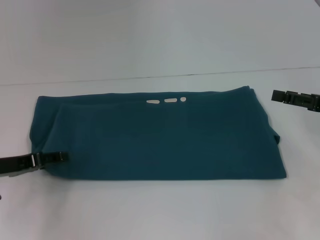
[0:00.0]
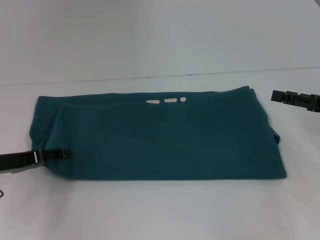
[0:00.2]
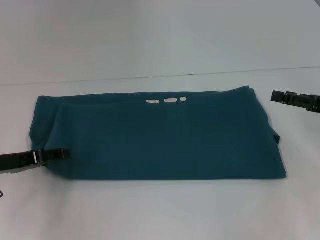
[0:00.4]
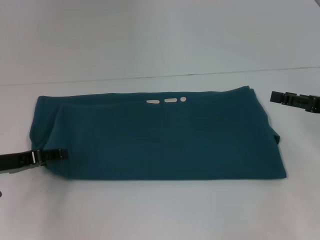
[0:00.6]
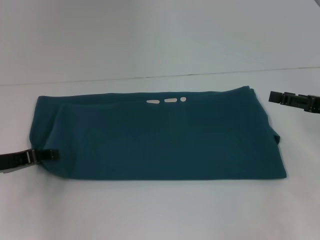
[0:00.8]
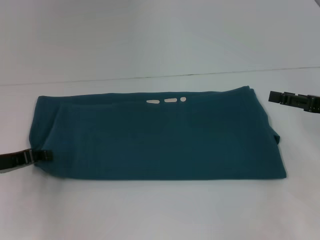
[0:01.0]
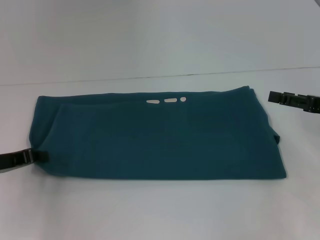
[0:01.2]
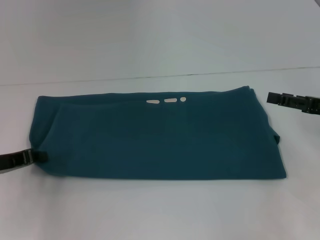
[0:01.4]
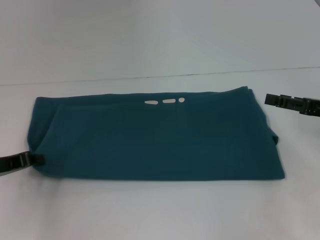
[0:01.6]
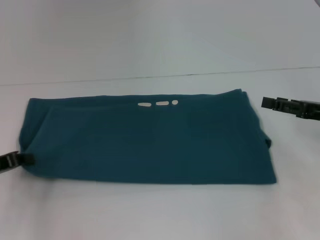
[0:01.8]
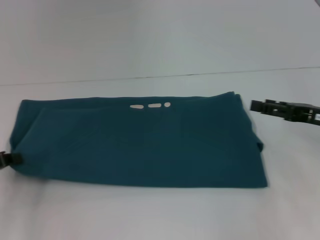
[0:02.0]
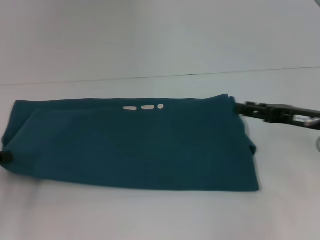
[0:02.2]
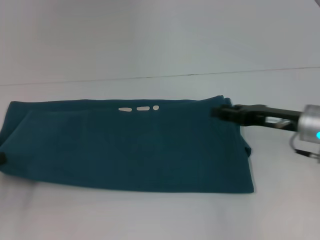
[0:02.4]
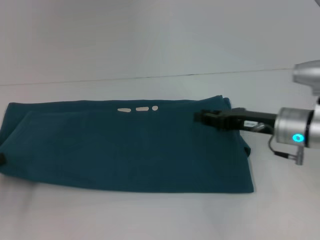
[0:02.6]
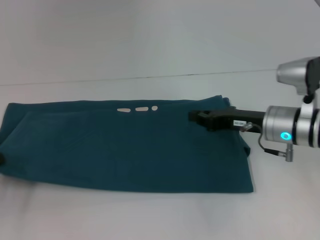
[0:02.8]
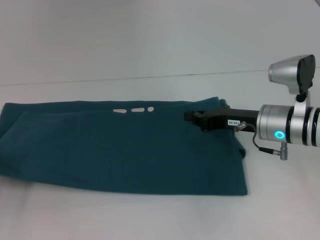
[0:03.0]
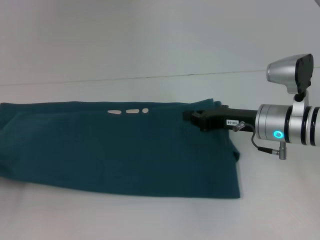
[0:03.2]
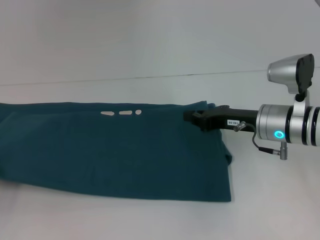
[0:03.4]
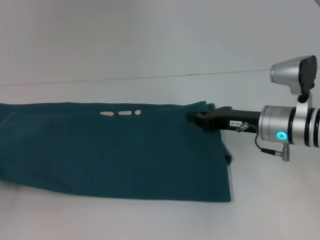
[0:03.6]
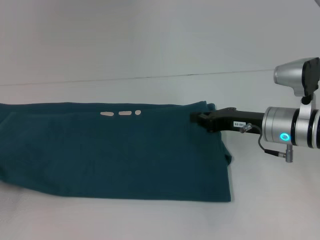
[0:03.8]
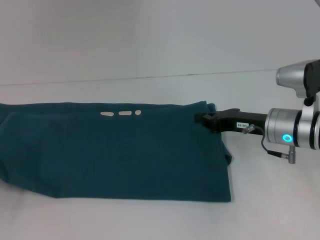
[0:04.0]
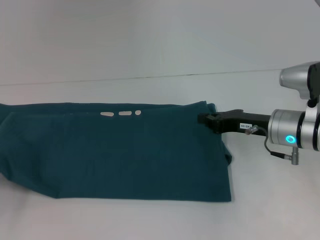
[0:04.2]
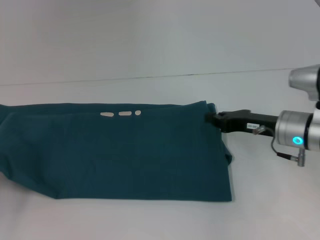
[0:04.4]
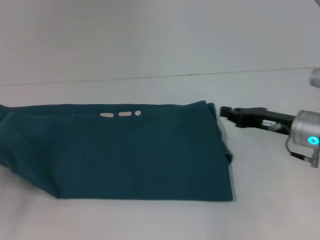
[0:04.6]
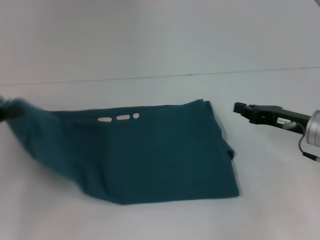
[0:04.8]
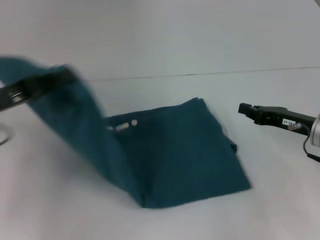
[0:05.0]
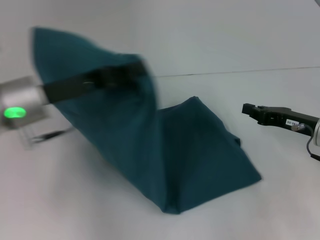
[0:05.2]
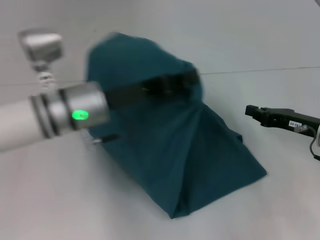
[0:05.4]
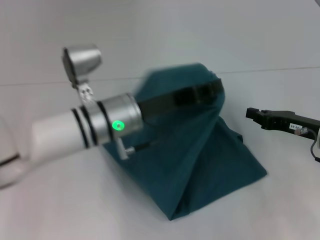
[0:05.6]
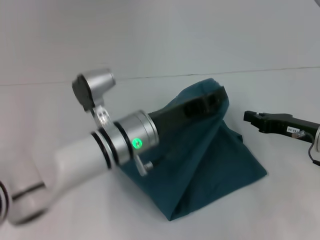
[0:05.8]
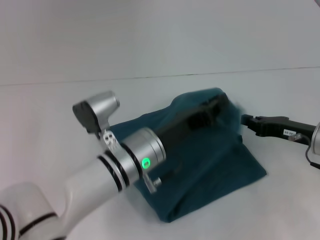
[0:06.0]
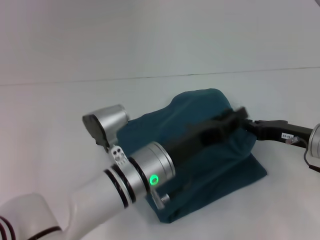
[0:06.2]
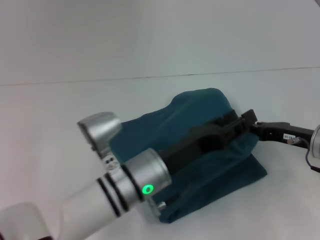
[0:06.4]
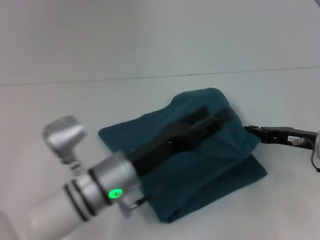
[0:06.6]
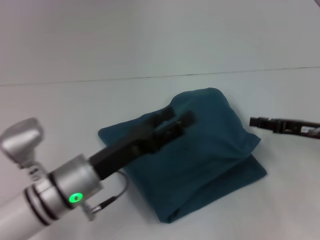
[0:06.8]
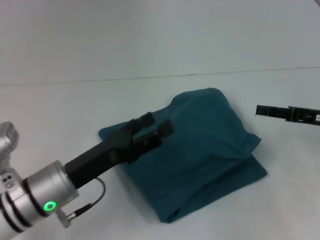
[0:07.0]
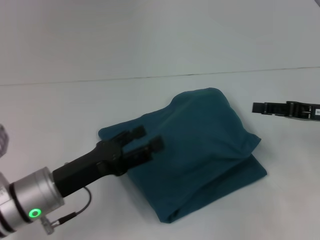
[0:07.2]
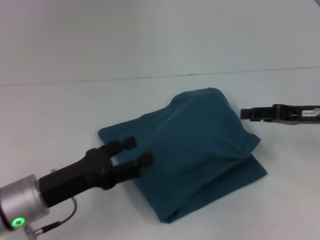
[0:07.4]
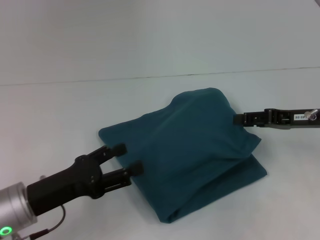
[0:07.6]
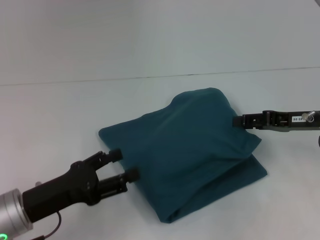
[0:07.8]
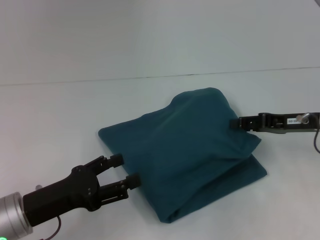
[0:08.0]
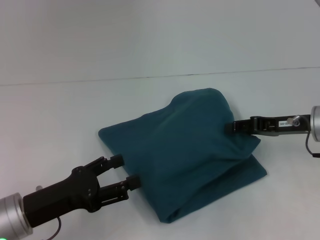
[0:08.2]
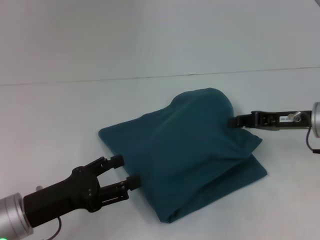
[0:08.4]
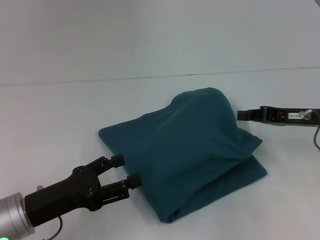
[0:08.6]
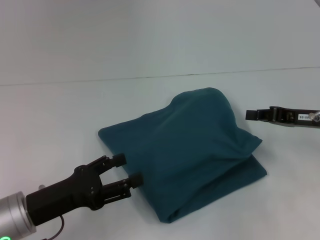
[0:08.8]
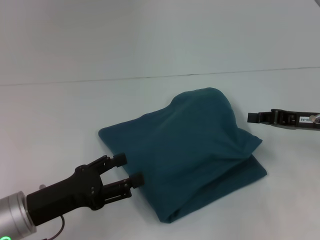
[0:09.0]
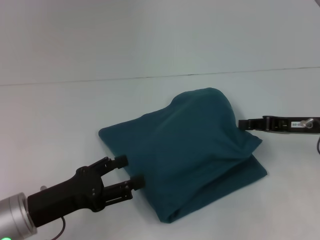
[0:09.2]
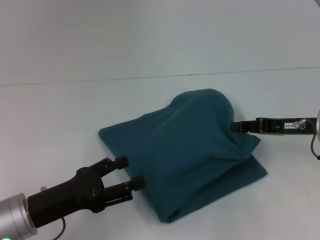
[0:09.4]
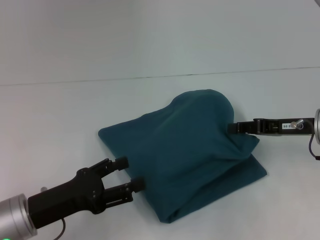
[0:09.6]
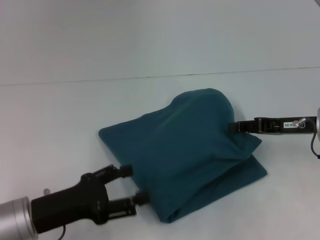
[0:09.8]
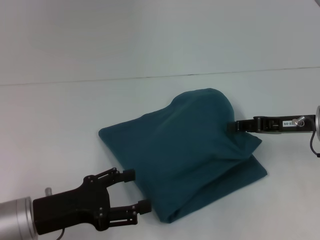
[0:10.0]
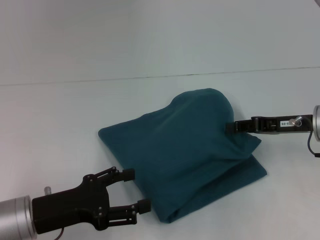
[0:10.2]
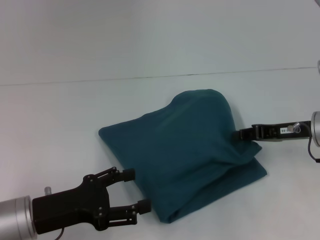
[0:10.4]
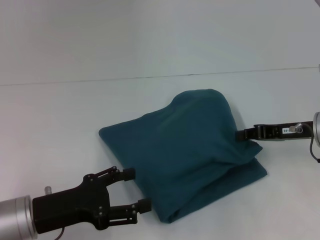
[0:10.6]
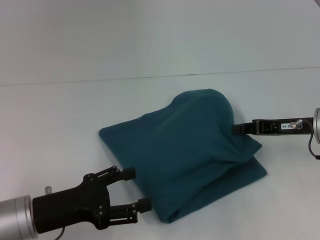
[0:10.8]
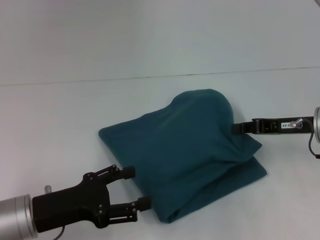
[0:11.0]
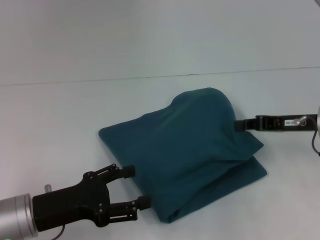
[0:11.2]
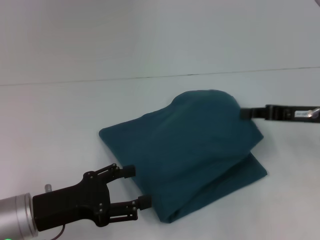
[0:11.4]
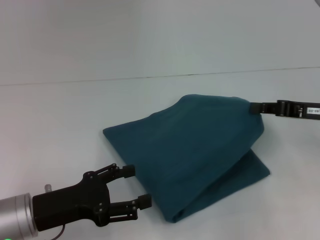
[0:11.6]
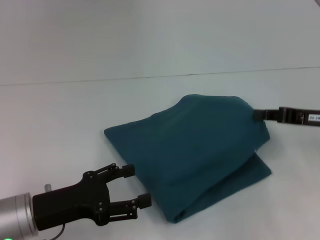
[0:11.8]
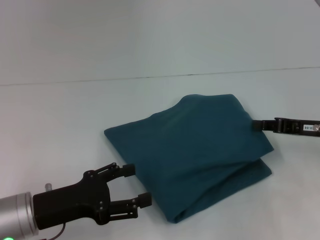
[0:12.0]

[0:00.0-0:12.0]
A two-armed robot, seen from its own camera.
Step, 0:00.0 to 0:06.2: Fold the clothes to the left.
0:00.0 to 0:01.6: The left gripper closes its fingers.
0:01.6 to 0:03.0: The left gripper travels to the left by approximately 5 cm. Meanwhile the right gripper is displaced to the left by some 15 cm, and closes its fingers.
0:03.0 to 0:04.4: The grippers move only a little.
0:04.4 to 0:06.0: The left gripper shifts about 35 cm to the right, while the right gripper is displaced to the right by some 5 cm.
0:06.0 to 0:07.6: The right gripper heads upward, covering some 5 cm, and opens its fingers. The left gripper is displaced to the left by approximately 15 cm, and opens its fingers.
0:07.6 to 0:09.0: The right gripper closes up.
0:09.0 to 0:12.0: The grippers stay close to where they were, moving slightly.

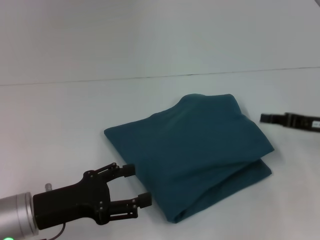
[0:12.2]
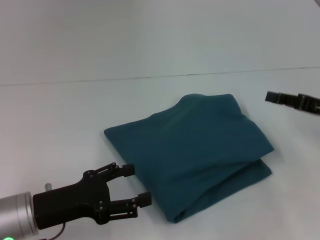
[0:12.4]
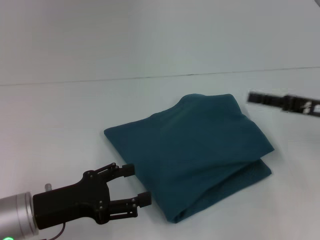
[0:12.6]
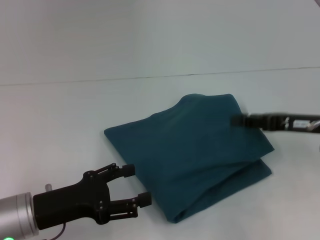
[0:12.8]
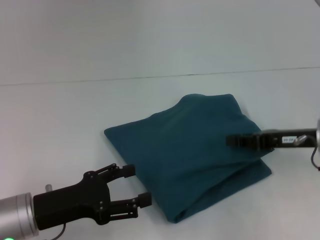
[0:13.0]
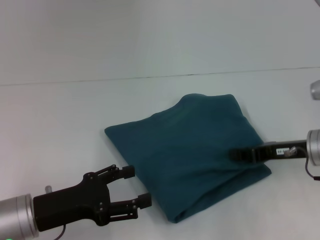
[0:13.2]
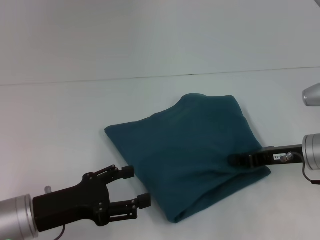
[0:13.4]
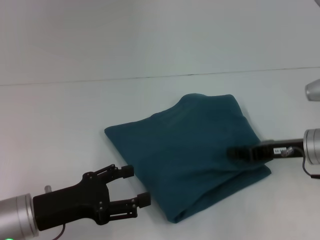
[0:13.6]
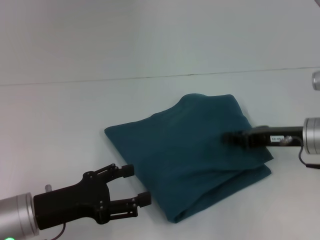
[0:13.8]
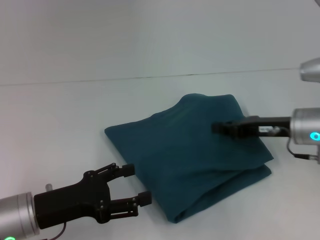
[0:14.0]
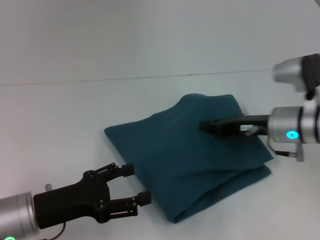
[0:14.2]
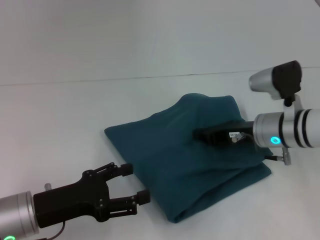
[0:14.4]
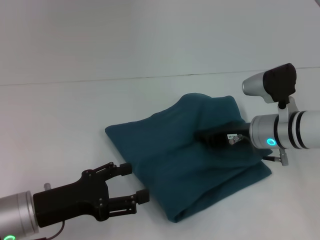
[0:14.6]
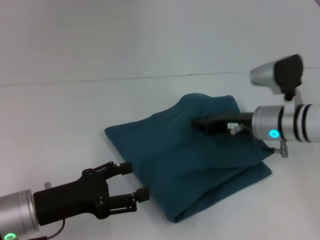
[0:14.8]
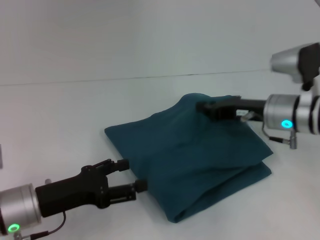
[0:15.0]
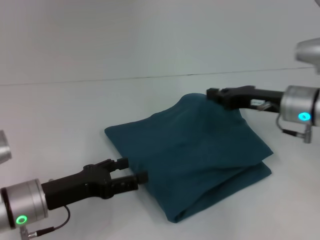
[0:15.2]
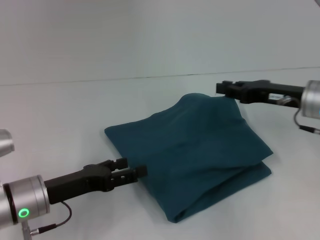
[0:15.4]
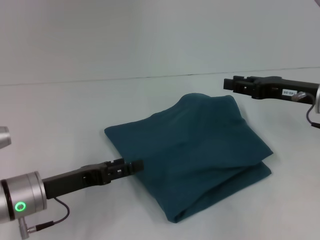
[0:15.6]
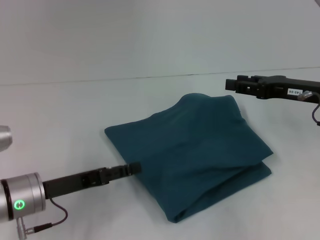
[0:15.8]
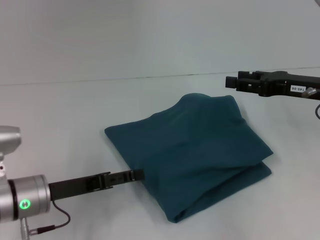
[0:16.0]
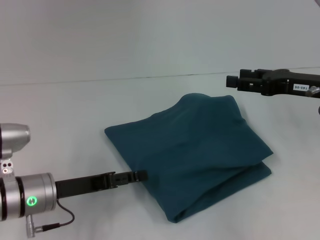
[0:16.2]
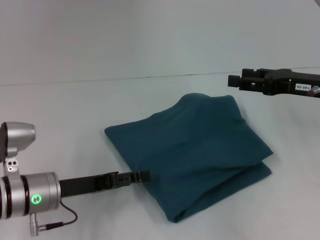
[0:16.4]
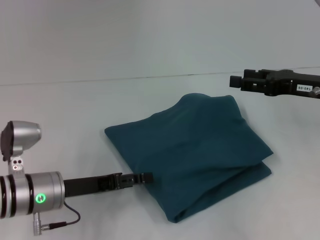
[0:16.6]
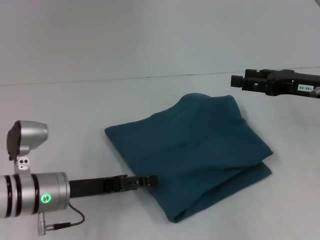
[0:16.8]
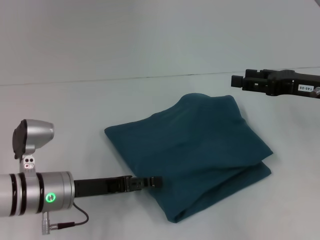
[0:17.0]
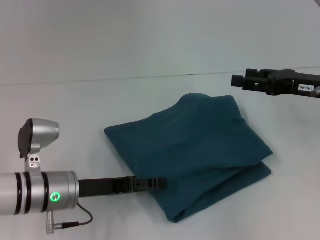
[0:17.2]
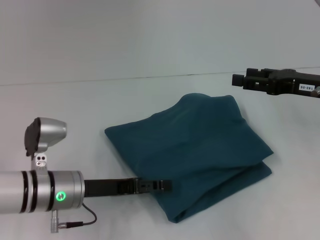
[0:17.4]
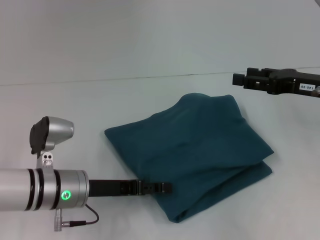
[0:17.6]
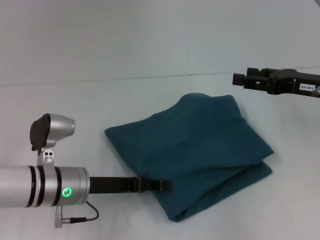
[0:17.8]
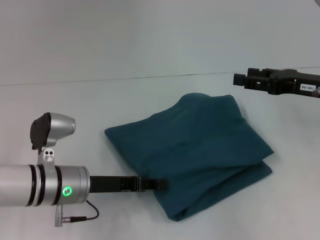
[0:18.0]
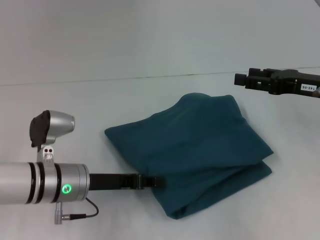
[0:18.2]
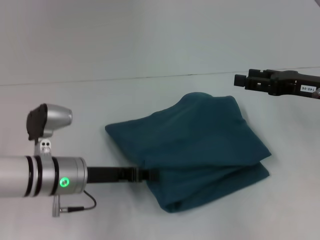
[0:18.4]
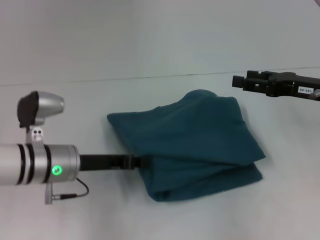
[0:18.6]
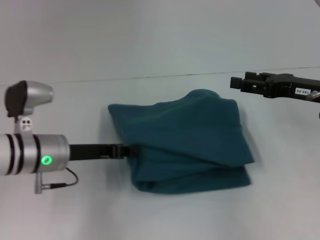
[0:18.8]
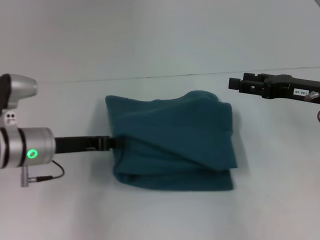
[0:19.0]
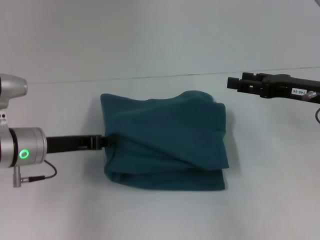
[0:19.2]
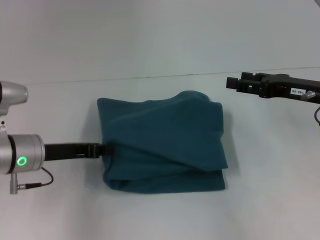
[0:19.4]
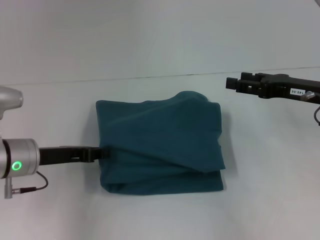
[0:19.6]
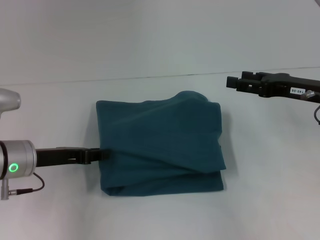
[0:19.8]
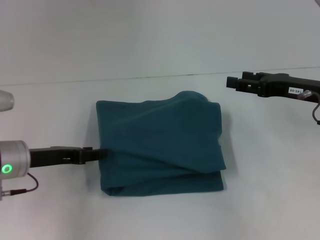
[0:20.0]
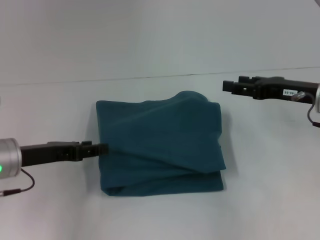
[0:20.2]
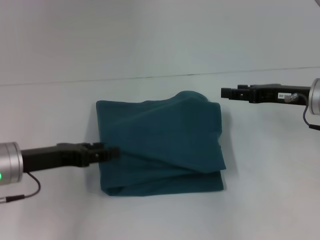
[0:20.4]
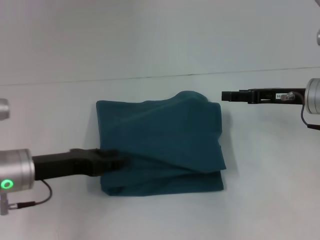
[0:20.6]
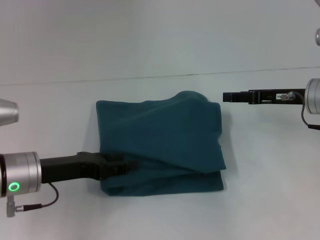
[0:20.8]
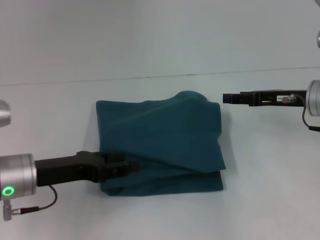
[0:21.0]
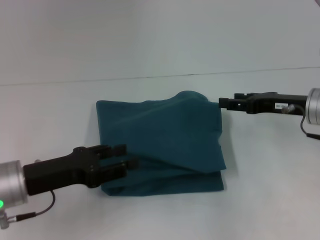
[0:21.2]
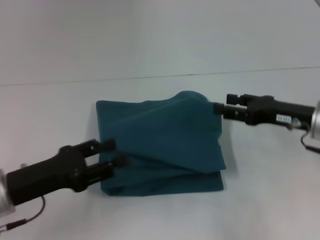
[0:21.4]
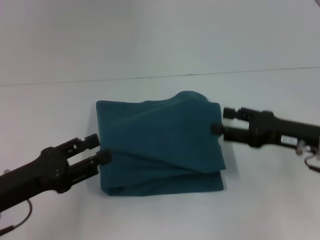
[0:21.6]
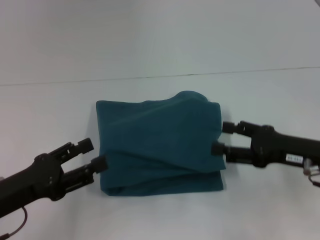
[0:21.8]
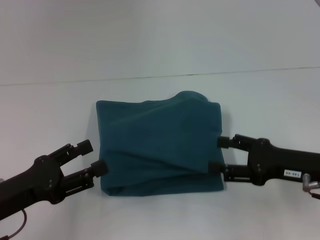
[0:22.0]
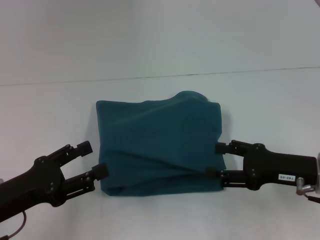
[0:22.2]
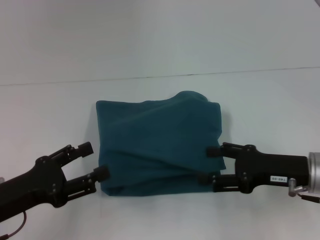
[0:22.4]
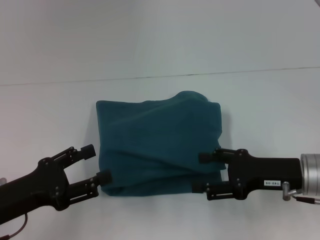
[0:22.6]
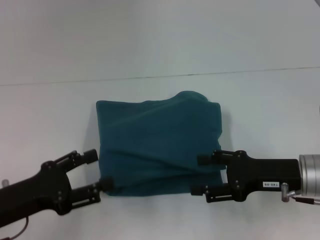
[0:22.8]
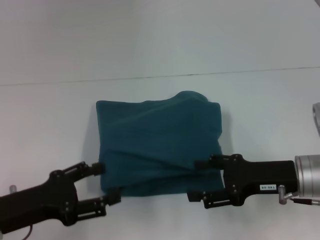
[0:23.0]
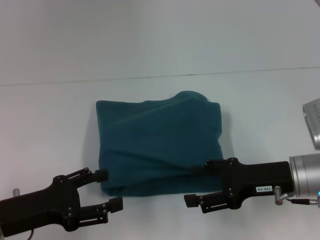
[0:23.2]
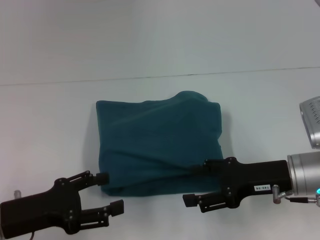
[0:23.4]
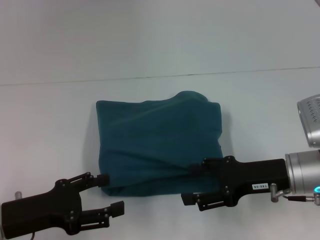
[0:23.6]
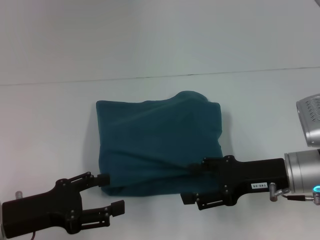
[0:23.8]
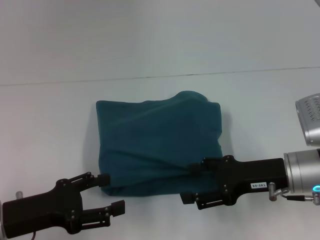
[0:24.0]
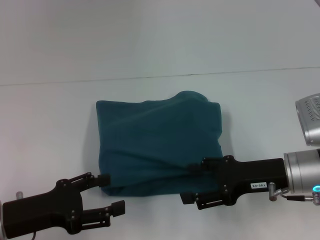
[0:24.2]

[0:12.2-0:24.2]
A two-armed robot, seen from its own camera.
0:12.2 to 0:13.8: The right gripper goes approximately 5 cm to the left, and opens, then closes once more.
0:15.2 to 0:16.6: The right gripper shifts approximately 5 cm to the right, and opens.
0:16.6 to 0:18.2: The left gripper closes.
0:18.2 to 0:19.8: The left gripper is displaced to the left by approximately 5 cm.
0:19.8 to 0:21.2: The left gripper is displaced backward by about 5 cm, and opens up.
0:21.2 to 0:22.6: The right gripper moves backward, about 10 cm; the left gripper ends up roughly 5 cm from where it was.
0:22.6 to 0:24.2: There are only small adjustments of the grippers.
